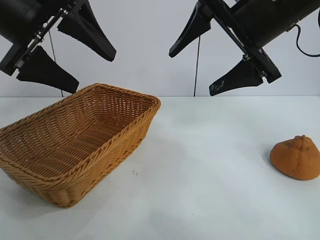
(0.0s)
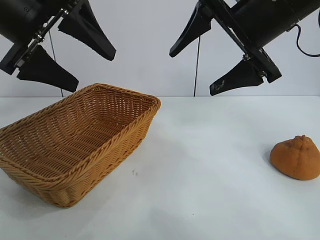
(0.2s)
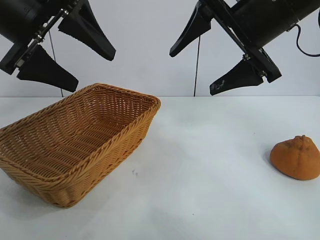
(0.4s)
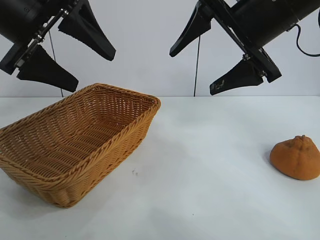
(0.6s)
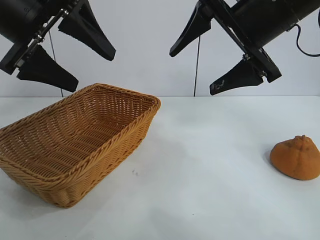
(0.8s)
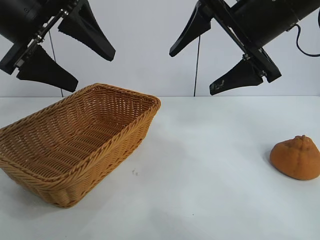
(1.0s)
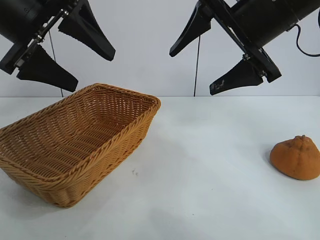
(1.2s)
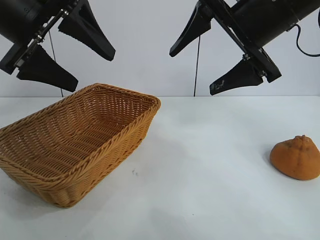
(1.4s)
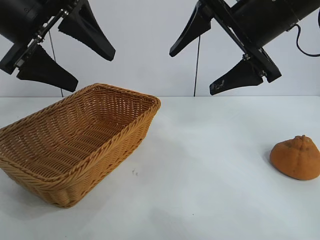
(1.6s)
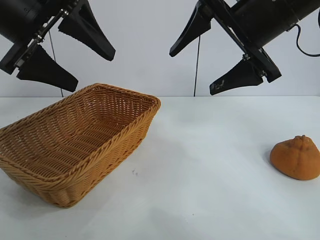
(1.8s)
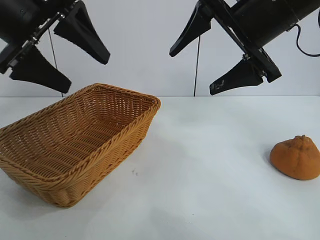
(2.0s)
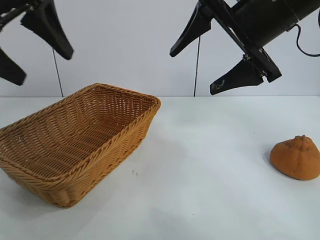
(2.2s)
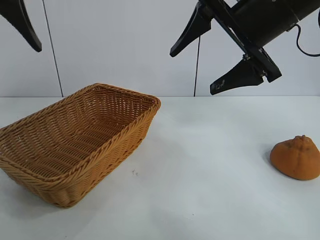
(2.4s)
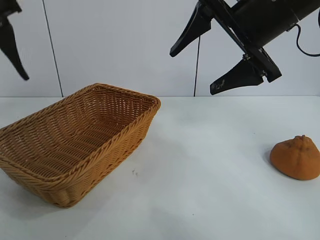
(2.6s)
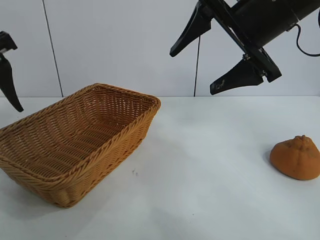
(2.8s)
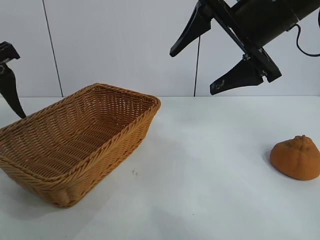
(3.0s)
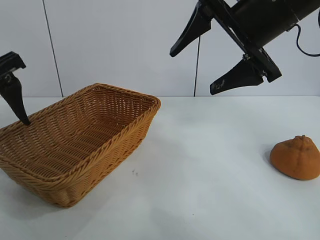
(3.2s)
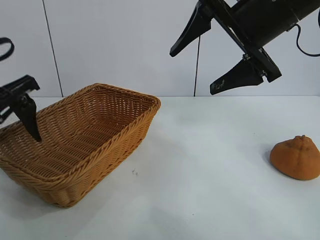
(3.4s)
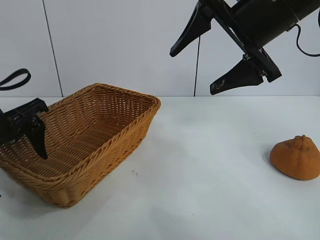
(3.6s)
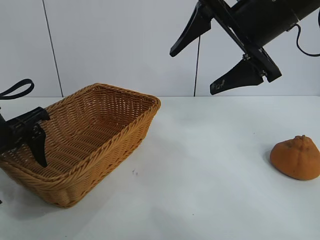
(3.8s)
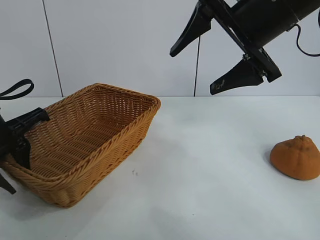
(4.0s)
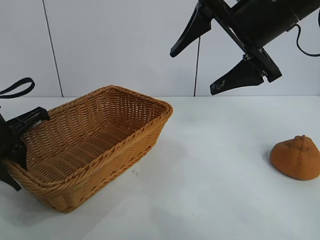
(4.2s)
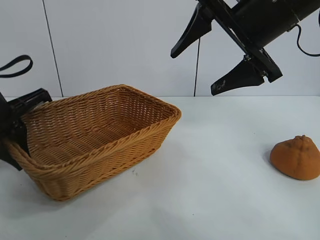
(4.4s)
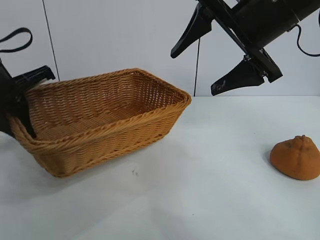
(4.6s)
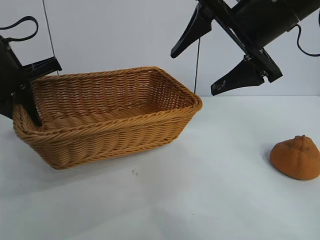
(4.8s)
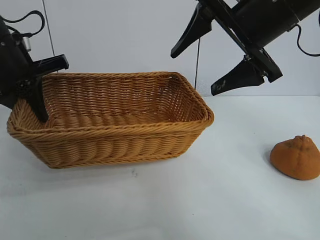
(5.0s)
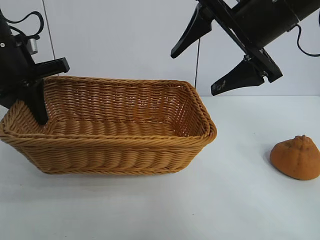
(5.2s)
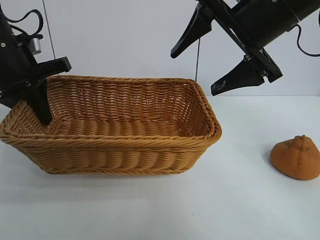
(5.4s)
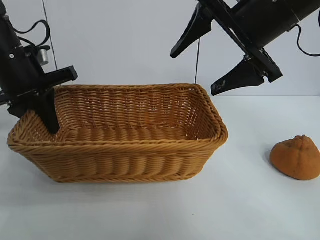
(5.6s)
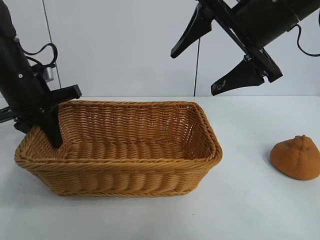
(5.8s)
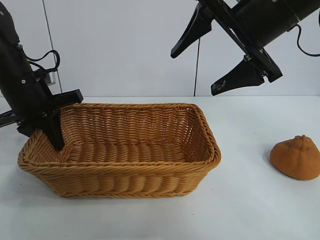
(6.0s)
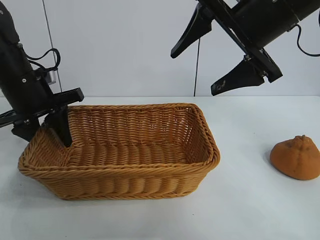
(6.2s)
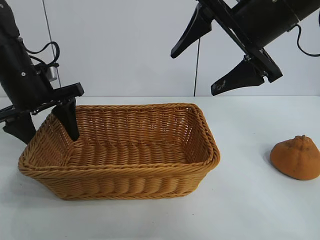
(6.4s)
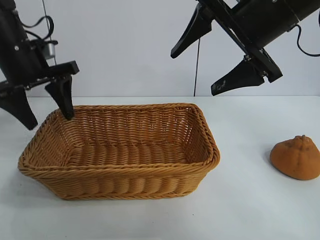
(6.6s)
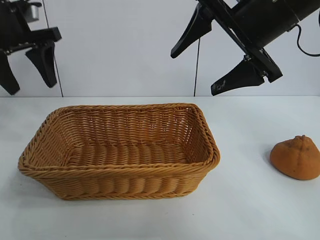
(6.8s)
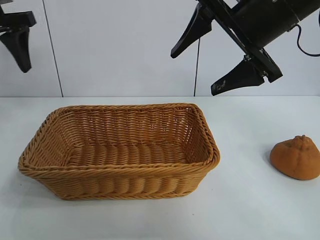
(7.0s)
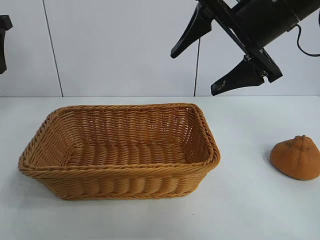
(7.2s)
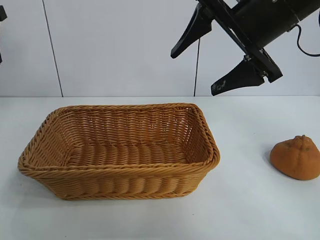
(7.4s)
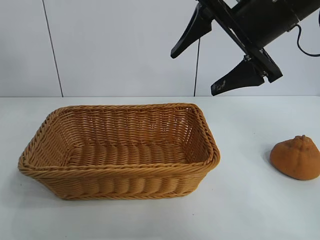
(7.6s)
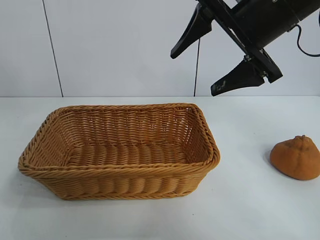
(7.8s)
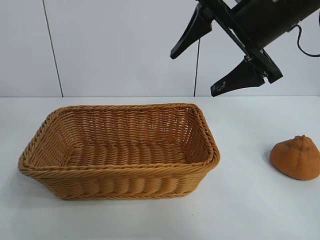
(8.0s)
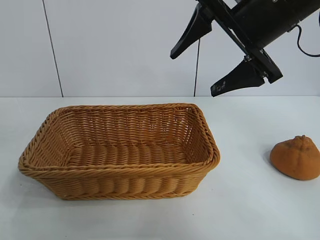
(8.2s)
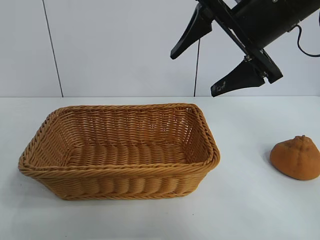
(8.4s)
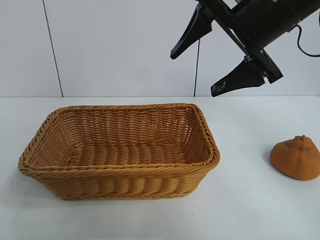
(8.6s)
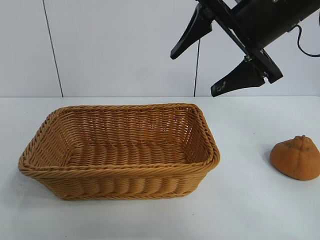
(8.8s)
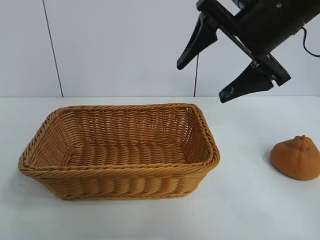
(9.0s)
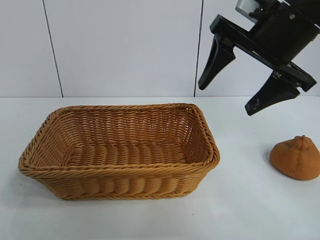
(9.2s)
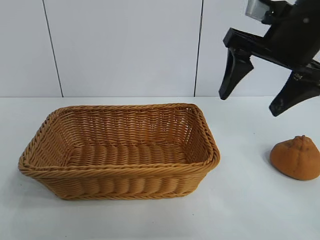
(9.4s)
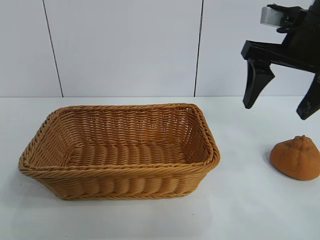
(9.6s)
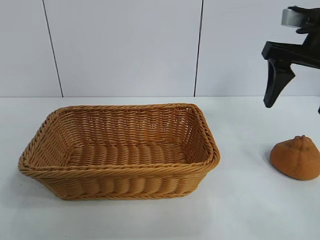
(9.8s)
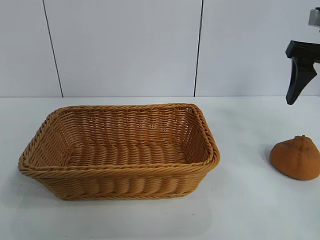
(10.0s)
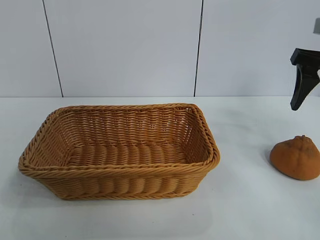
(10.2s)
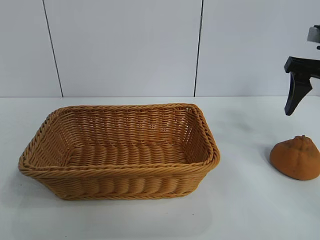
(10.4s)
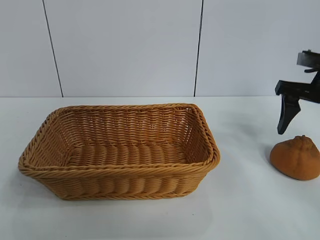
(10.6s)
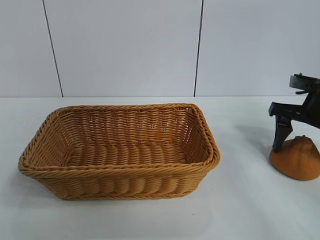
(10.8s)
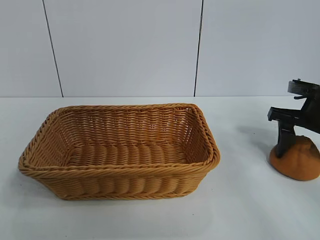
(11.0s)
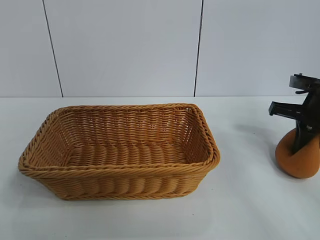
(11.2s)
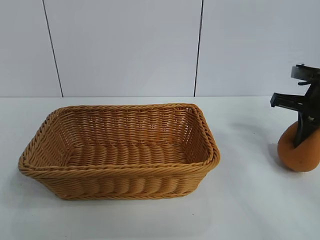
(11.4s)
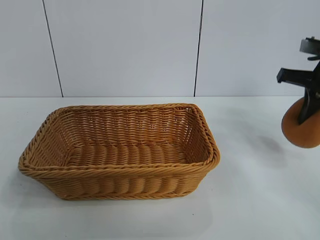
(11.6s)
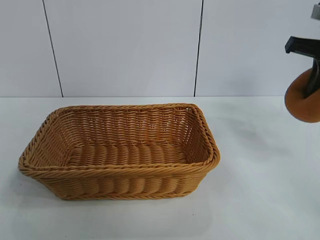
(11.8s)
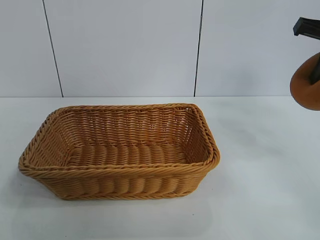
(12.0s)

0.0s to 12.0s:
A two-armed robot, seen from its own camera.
Task of the whole recording: pick up the orange and put it into the basket.
Step, 0.0s to 4.2s: Grasp the basket with left gripper.
Step, 4.4s to 6.4s: Place the basket in the center of view with left gripper.
Step, 6.6s to 11.0s: Grasp the orange with right gripper.

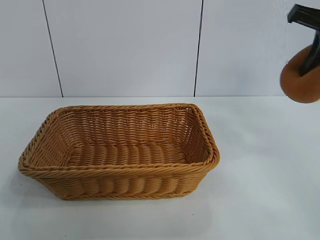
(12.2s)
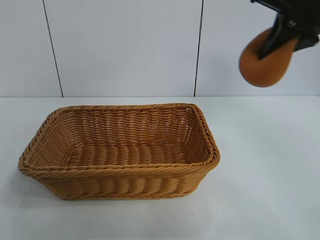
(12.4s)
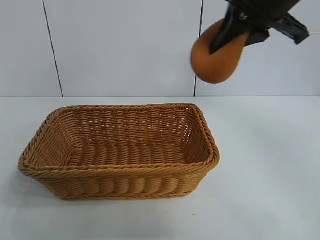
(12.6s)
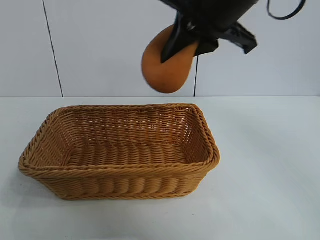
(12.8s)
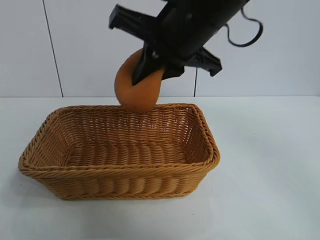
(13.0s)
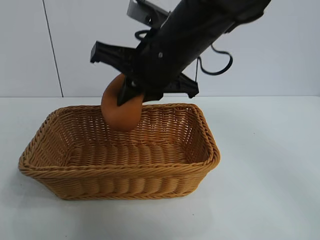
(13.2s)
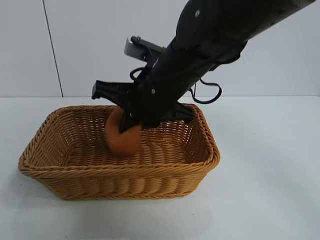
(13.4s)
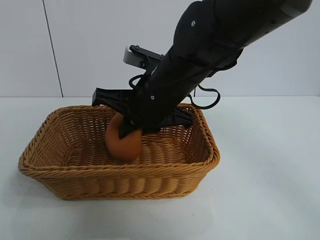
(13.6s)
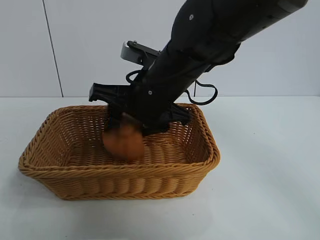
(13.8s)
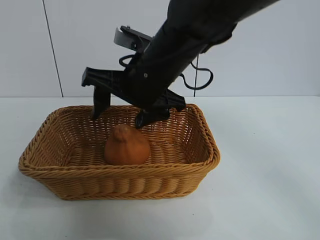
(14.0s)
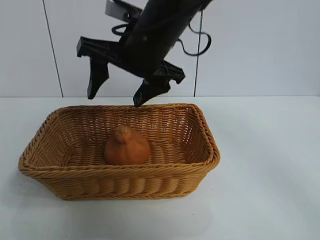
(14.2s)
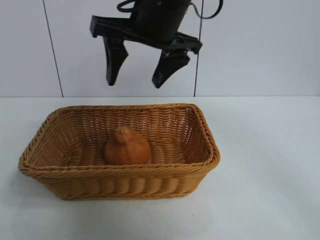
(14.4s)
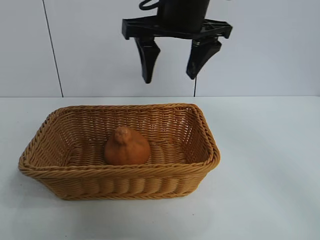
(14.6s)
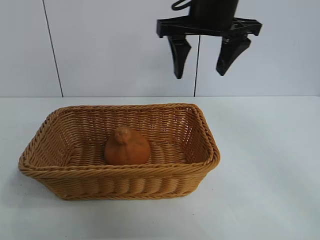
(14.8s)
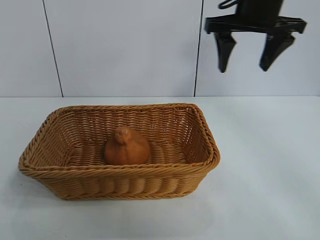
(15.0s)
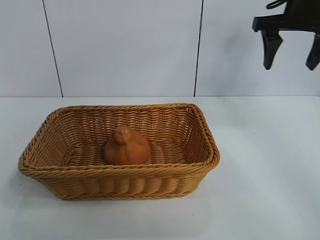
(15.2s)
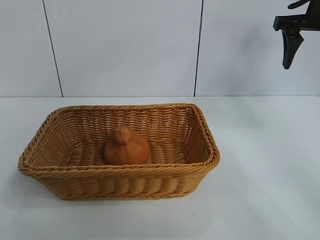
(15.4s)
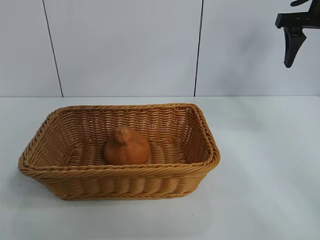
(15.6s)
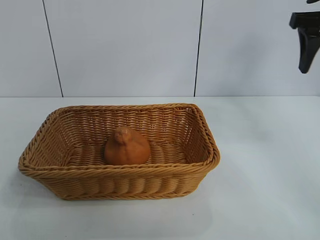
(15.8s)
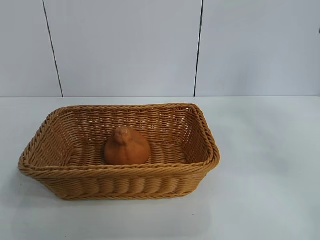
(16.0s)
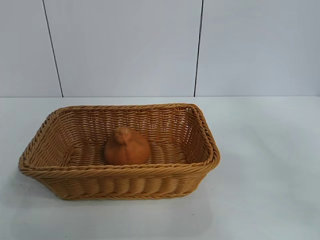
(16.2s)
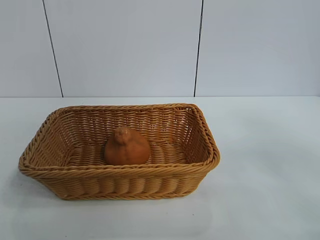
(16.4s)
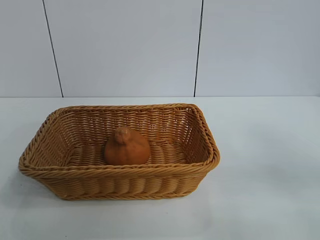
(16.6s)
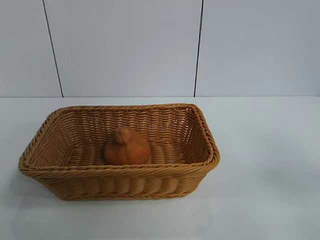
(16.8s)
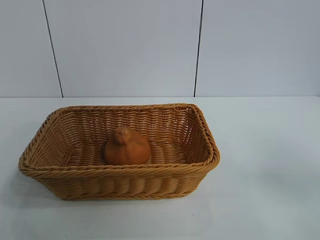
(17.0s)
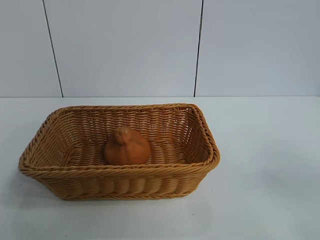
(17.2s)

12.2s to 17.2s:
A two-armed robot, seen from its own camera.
Task of the whole recording: pick up the orange and put it into the basket.
Step, 12.2s to 13.8s: Place the orange in the basket with right gripper.

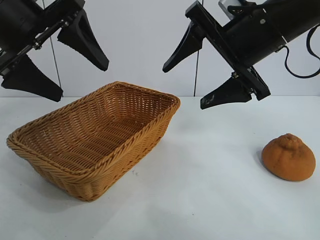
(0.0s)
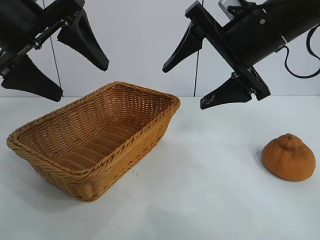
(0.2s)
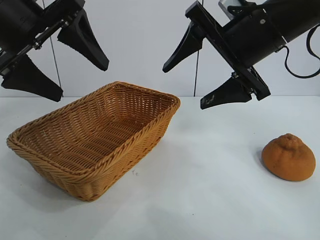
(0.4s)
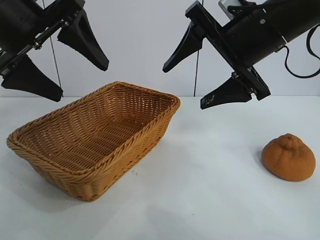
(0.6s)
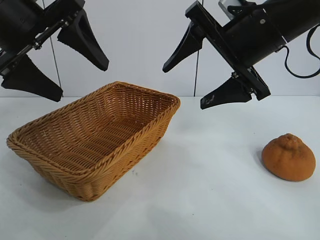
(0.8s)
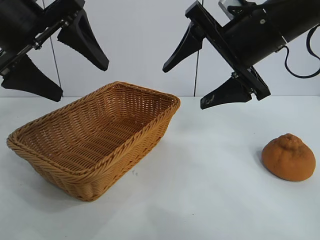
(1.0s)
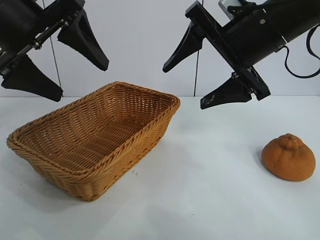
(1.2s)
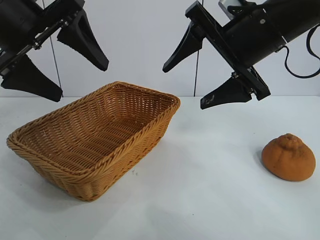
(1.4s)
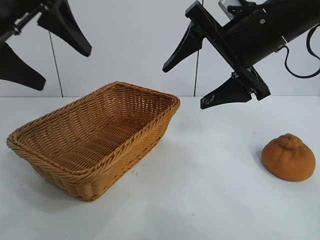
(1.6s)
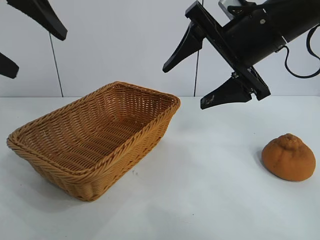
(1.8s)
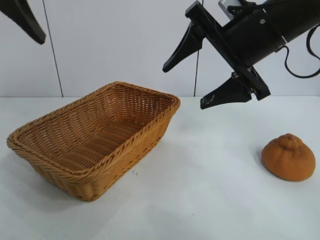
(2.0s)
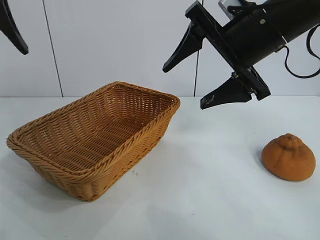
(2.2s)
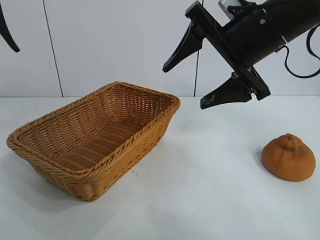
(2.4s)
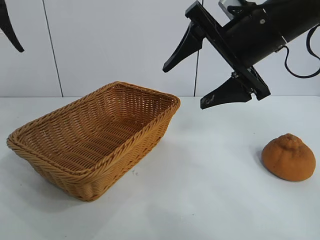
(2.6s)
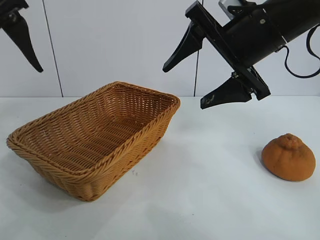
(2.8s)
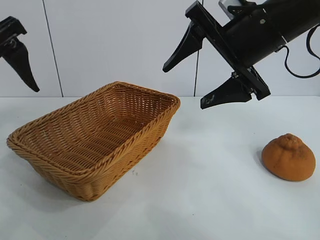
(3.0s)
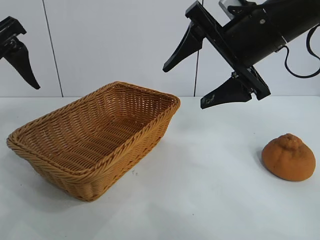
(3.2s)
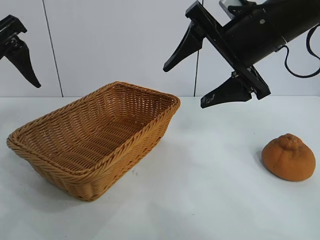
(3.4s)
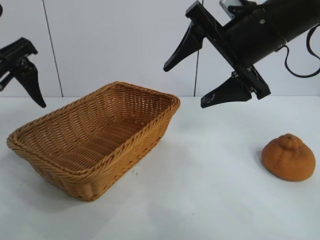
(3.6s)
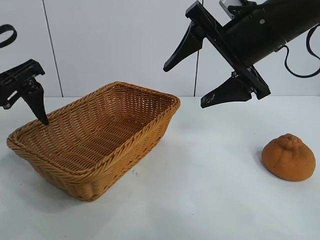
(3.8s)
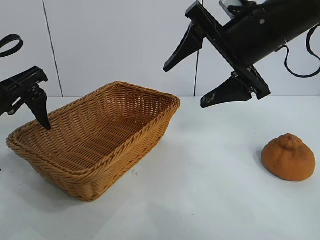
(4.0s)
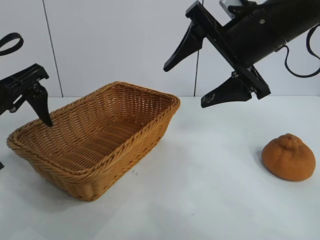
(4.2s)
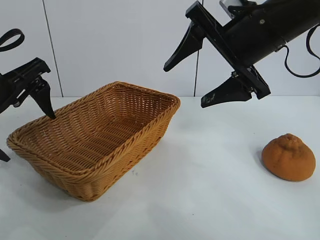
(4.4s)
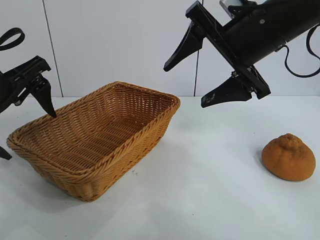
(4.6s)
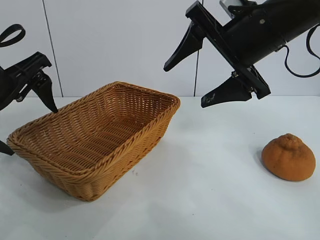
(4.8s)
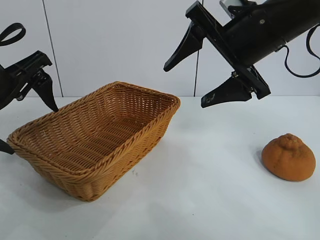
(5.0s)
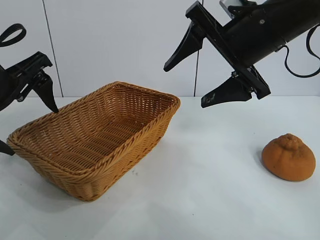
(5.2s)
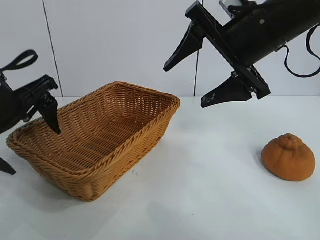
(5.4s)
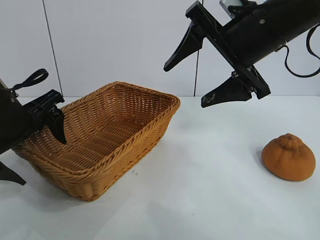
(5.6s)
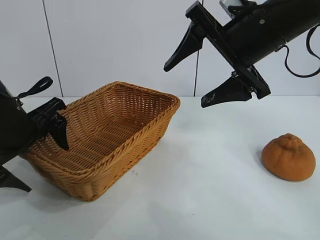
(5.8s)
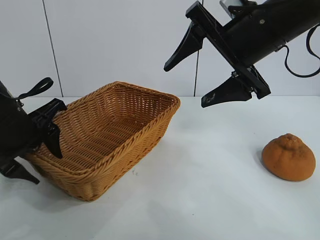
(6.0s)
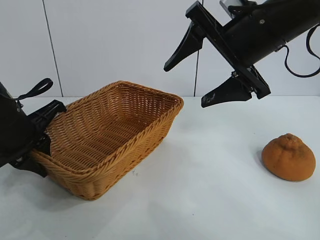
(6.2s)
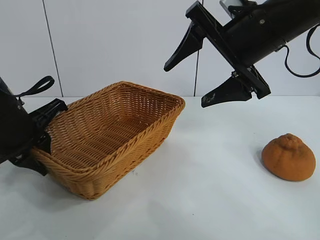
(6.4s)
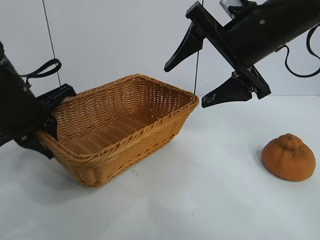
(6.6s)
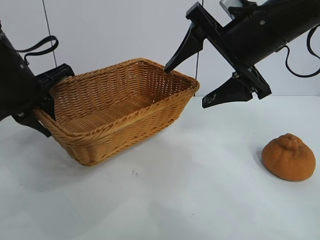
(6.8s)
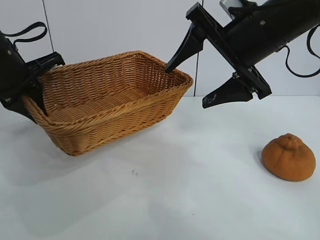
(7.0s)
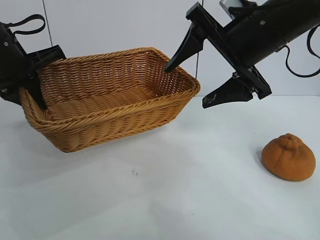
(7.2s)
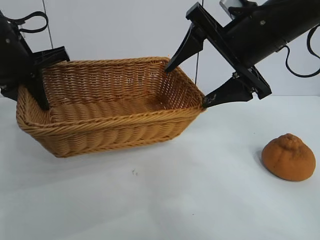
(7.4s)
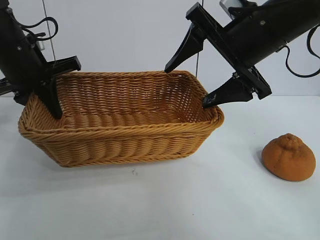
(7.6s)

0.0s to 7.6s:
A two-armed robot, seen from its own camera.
Task of the whole recording: pick up the orange and put it into the basket.
Step, 1.4s to 6.0s: Grasp the basket with left gripper.
